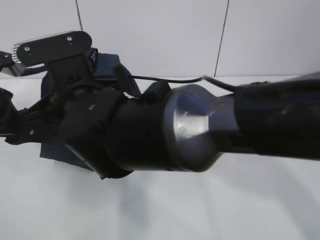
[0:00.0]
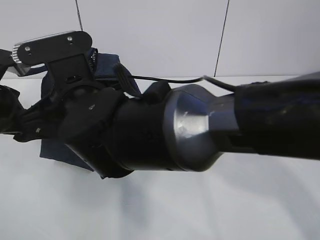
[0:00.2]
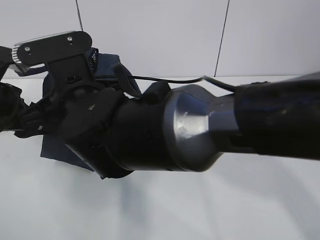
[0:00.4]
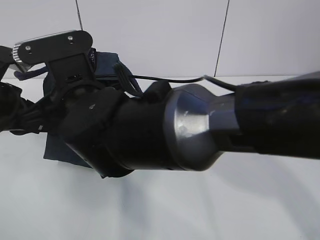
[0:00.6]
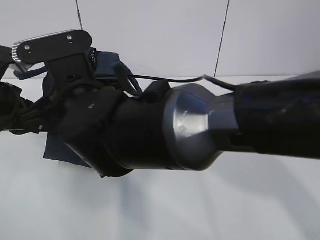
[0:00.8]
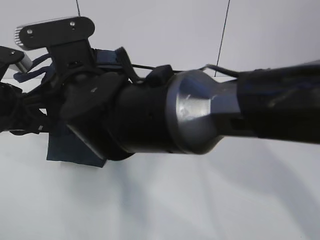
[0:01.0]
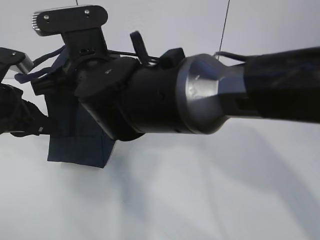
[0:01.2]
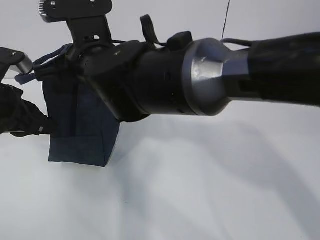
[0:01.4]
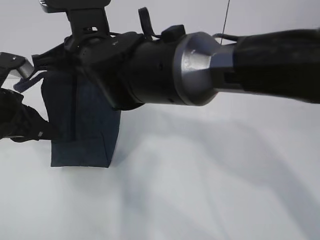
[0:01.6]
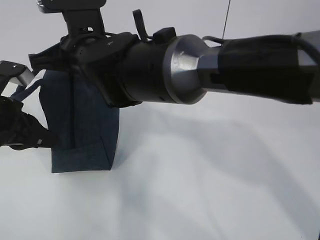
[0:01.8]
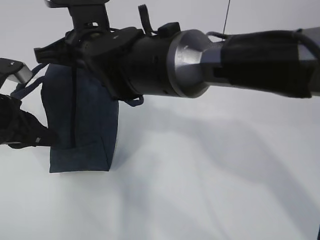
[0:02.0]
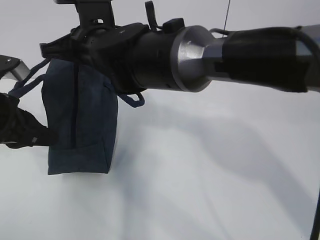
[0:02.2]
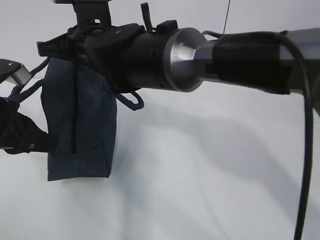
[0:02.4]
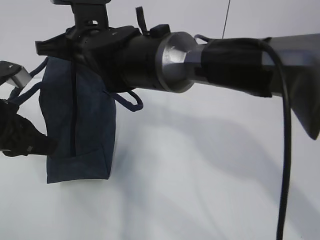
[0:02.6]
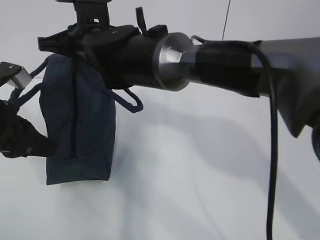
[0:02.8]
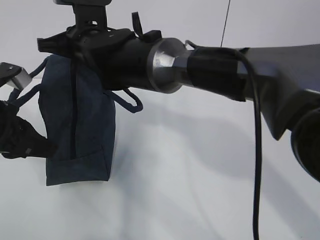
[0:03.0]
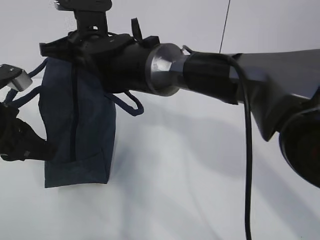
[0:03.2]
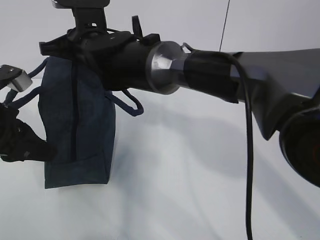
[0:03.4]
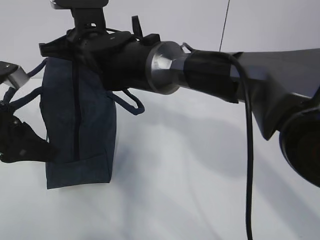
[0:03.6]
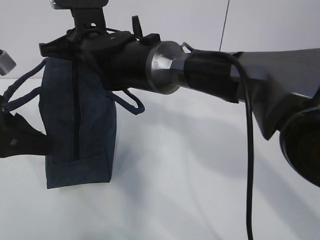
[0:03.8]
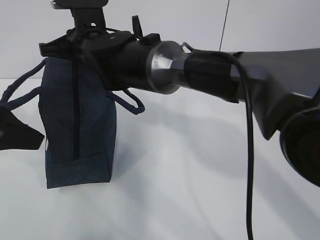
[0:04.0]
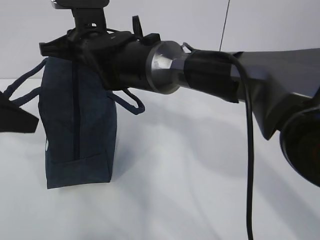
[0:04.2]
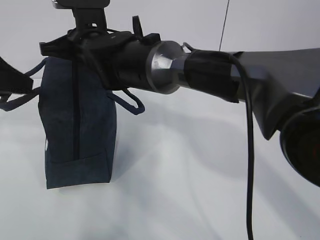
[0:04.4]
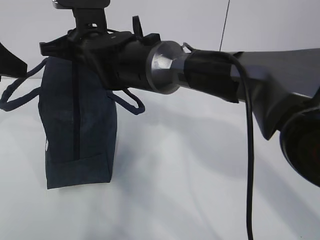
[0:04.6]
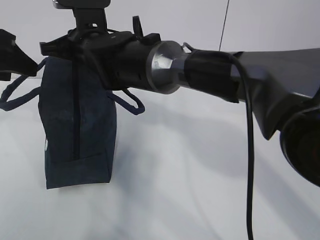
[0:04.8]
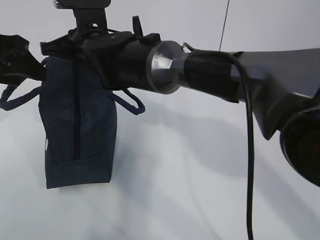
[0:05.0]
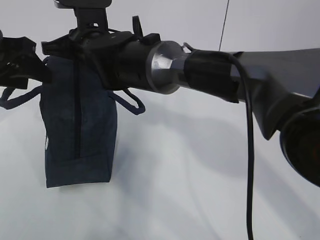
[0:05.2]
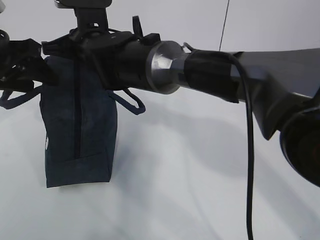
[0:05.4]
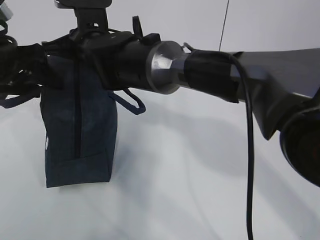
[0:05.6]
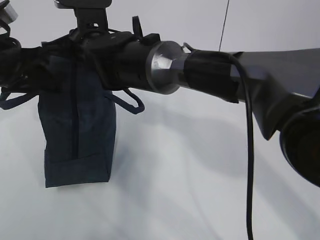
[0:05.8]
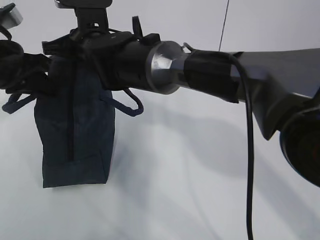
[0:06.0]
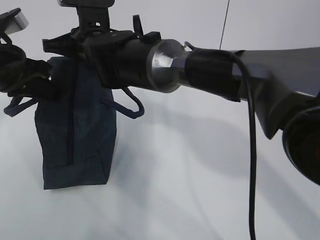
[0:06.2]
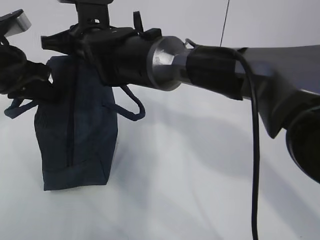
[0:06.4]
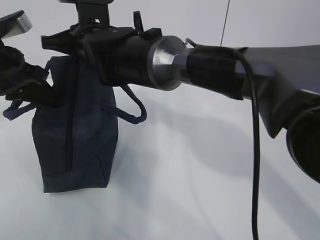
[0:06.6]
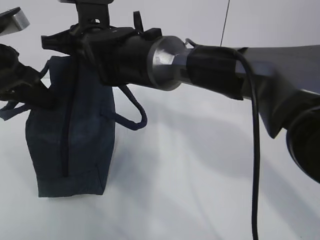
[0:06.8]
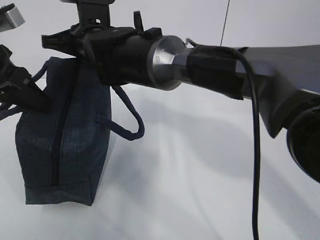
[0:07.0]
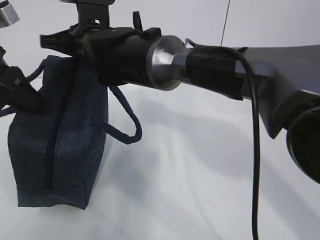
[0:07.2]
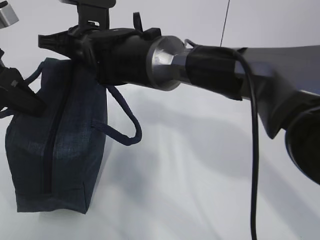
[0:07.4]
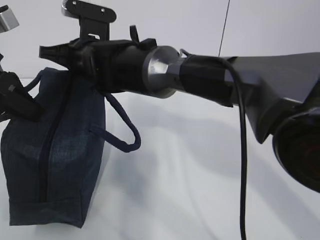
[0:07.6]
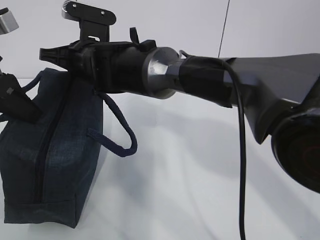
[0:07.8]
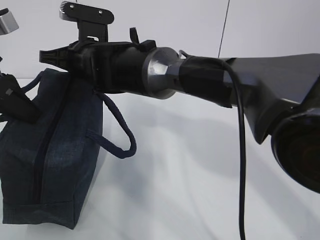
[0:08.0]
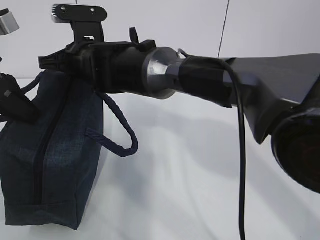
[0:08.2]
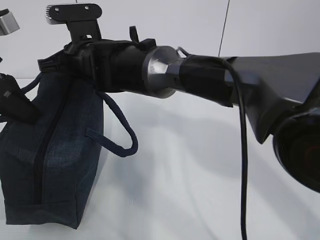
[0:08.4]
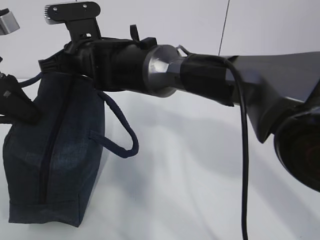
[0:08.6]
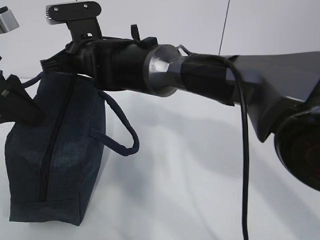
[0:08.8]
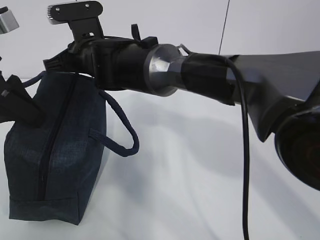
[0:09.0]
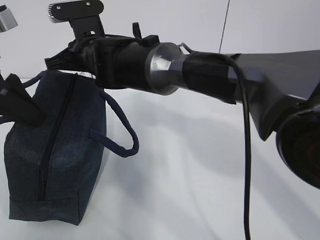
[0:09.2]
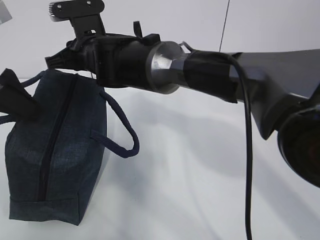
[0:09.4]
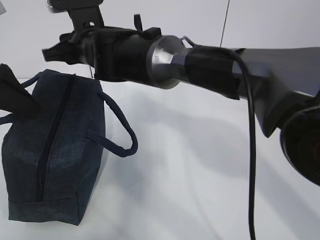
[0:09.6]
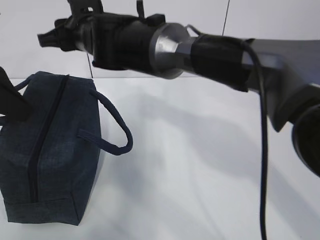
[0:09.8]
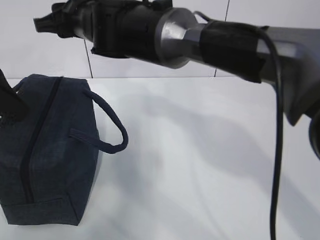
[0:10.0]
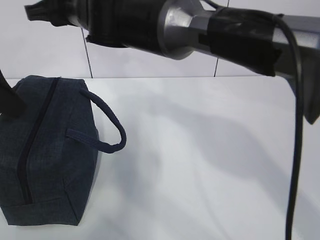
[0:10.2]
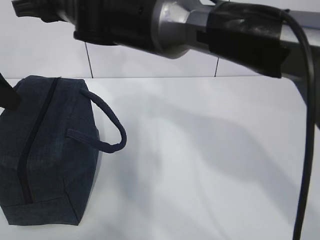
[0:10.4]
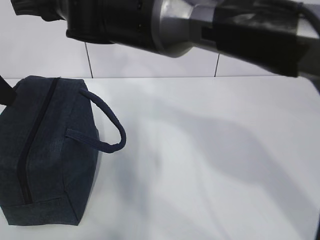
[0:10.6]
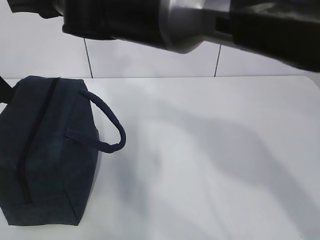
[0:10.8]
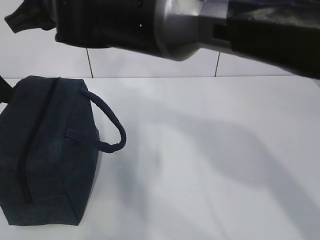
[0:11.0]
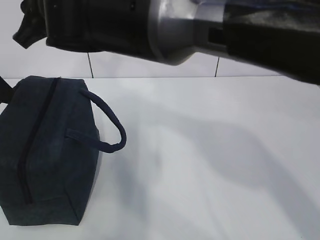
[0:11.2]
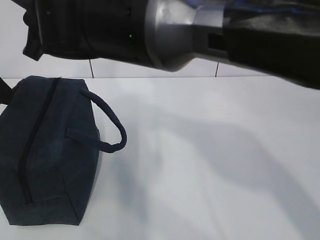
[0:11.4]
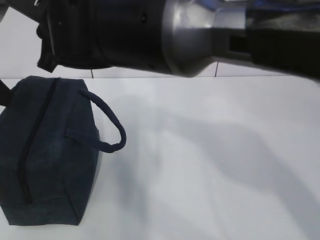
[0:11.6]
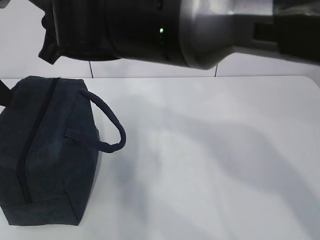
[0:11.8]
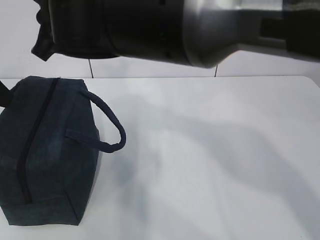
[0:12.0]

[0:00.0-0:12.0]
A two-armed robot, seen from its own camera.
Step, 0:00.0 to 0:06.2: Grab the lunch bag with your right hand.
Step, 0:06.4 to 0:08.0: Move the lunch bag to the right.
Step, 0:08.2 to 0:11.2: Grab the lunch bag with your left hand.
0:00.0 to 0:01.6: The left gripper closes its fingers; the right gripper is displaced forward by approximately 5 cm.
0:01.6 to 0:03.0: The right gripper goes some 5 cm forward.
0:03.0 to 0:04.4: The left gripper heads upward, covering approximately 10 cm, and opens.
0:04.4 to 0:06.0: The left gripper heads forward, covering roughly 10 cm, and closes.
0:06.0 to 0:07.6: The left gripper travels backward by roughly 5 cm.
0:07.6 to 0:09.0: The left gripper opens.
0:09.0 to 0:10.4: The right gripper is displaced upward by some 10 cm, and opens up.
0:10.4 to 0:12.0: The right gripper is displaced backward by roughly 5 cm.

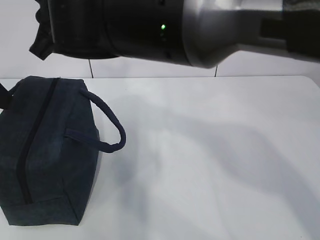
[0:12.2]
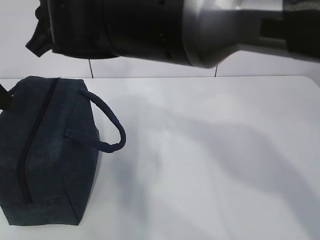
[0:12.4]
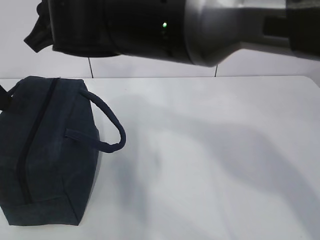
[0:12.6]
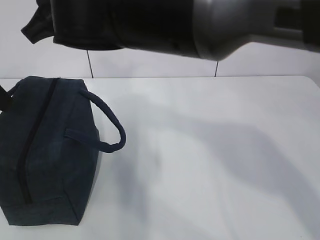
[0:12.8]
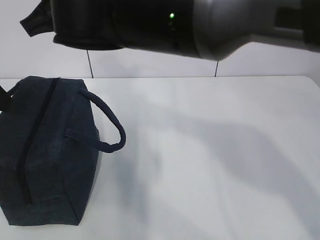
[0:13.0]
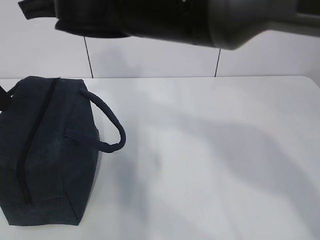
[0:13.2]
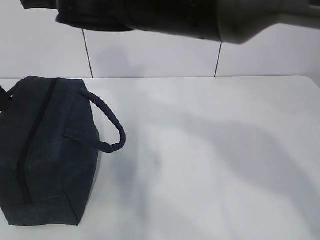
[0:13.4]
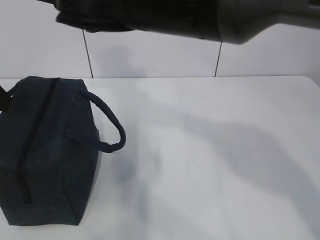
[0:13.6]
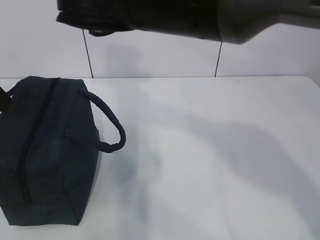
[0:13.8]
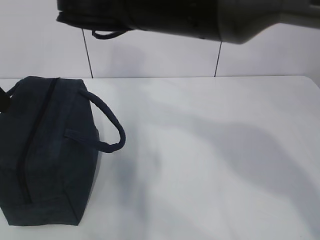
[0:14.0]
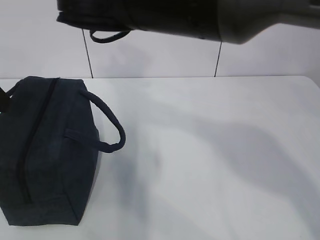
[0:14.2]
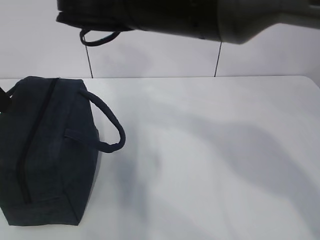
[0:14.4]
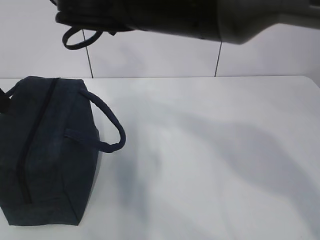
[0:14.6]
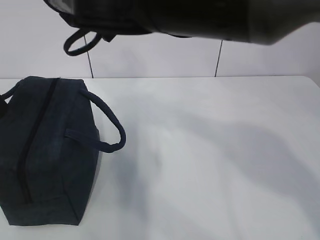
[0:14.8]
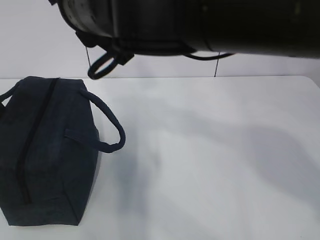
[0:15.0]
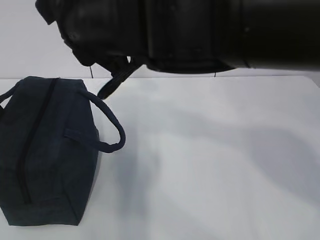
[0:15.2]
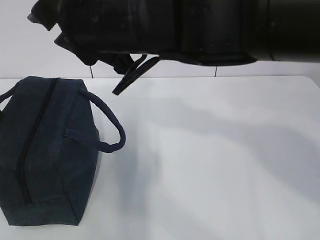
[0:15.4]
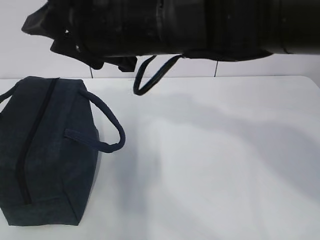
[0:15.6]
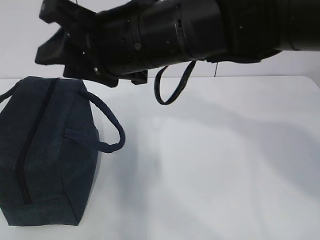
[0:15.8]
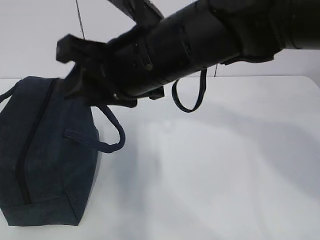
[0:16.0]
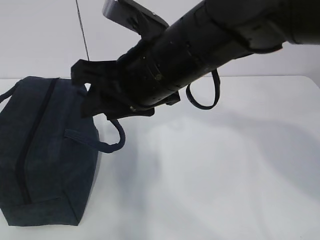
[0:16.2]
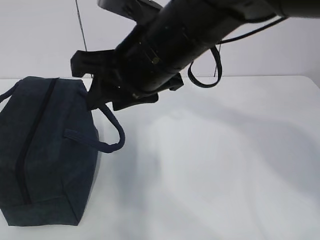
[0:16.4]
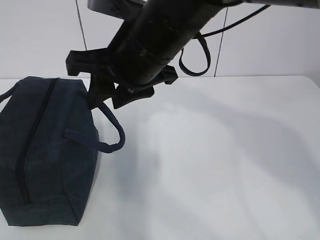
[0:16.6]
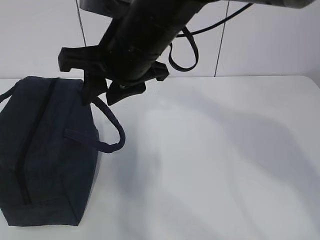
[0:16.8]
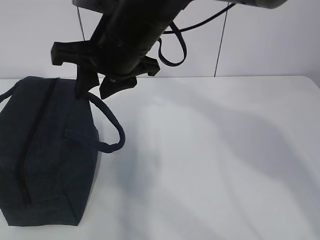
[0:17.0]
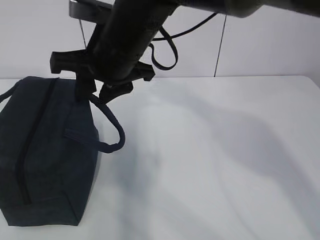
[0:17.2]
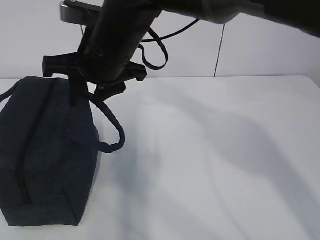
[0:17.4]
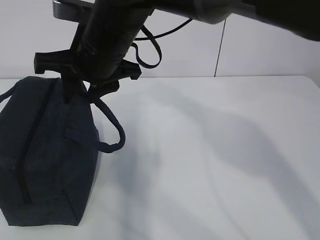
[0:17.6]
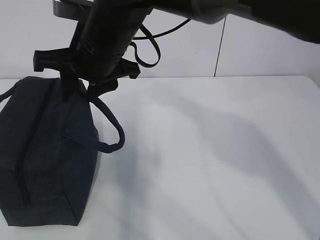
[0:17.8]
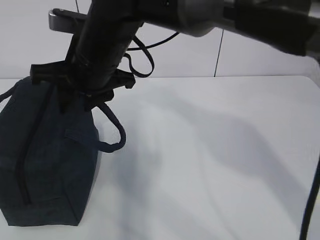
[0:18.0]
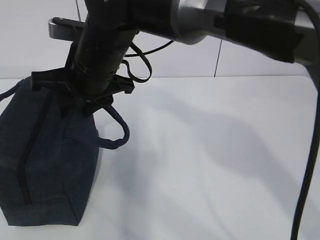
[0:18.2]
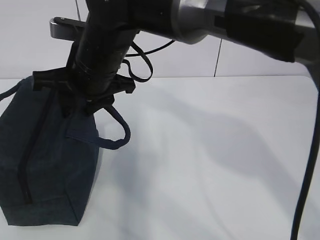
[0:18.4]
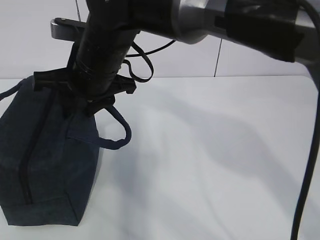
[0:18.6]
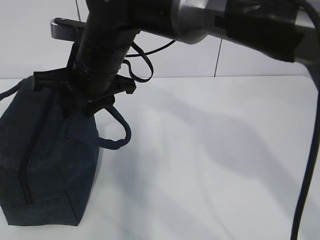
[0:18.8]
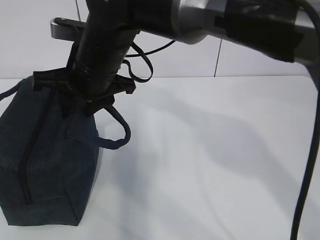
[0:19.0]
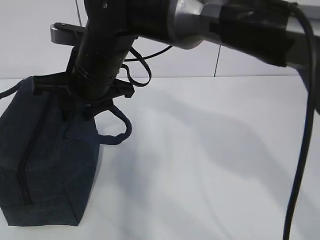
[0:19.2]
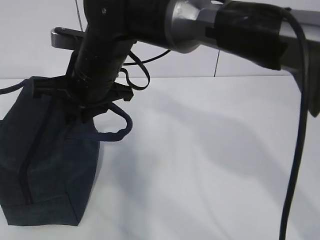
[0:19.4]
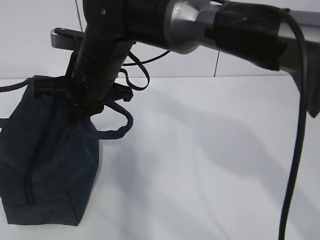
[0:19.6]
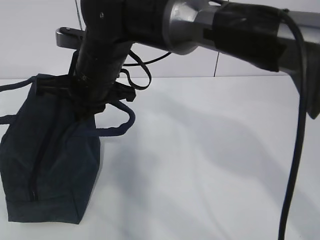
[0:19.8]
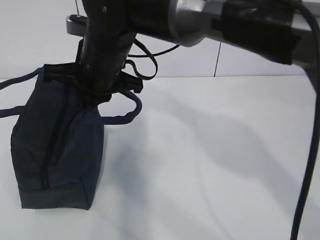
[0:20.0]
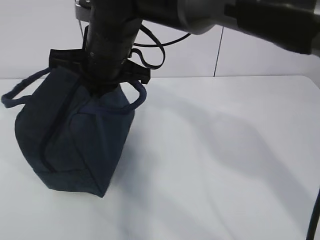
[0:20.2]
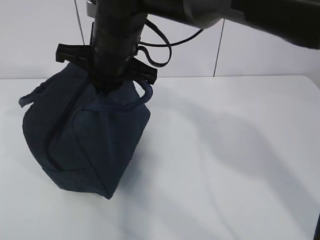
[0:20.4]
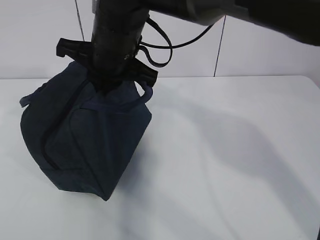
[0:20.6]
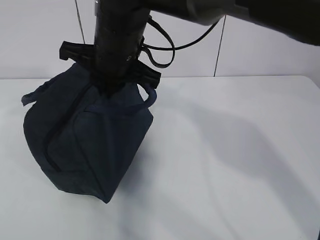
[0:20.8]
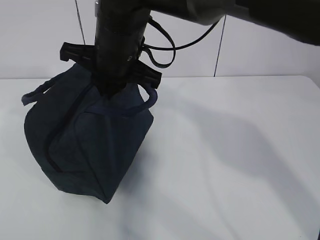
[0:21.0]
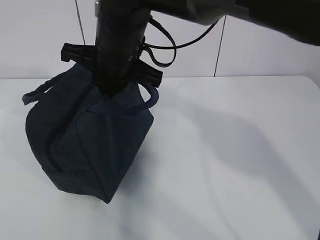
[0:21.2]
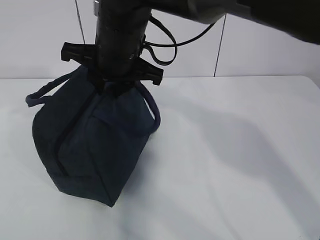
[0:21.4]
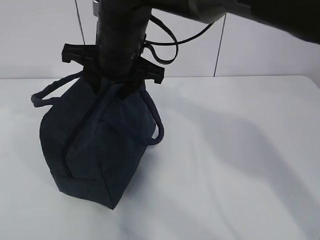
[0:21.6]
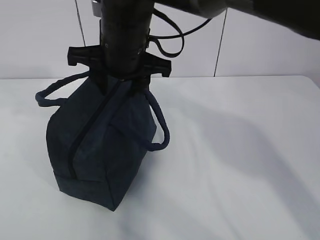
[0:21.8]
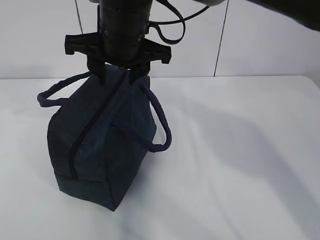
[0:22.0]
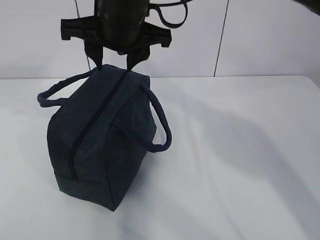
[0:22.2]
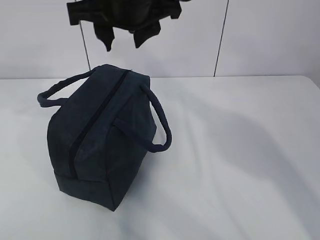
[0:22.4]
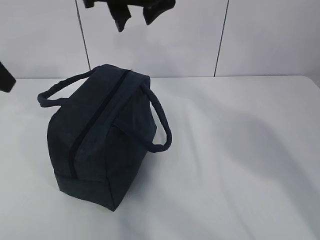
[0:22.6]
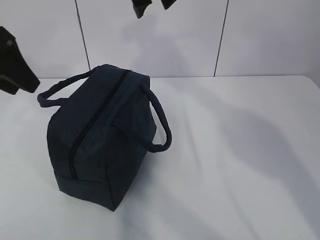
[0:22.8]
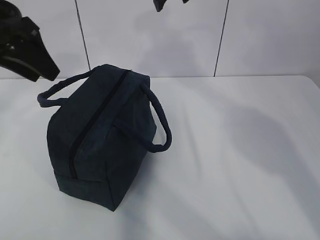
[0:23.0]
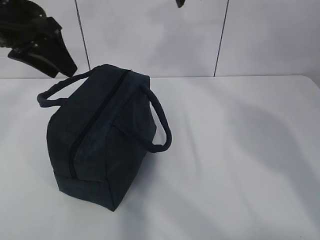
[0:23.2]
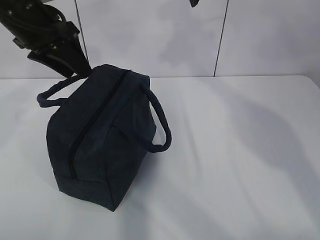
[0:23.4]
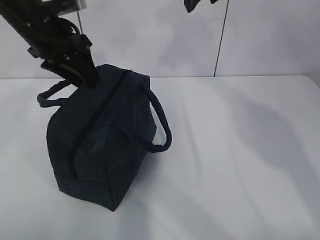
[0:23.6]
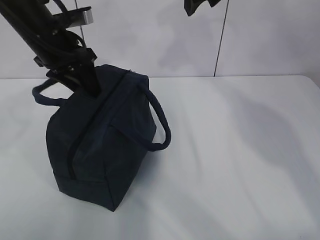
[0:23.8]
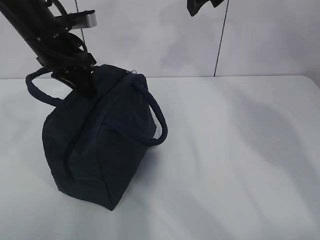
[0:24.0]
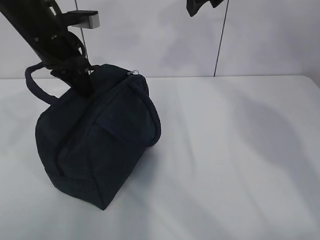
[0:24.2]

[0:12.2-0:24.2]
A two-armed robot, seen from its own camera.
Step, 0:12.2 to 0:23.0: Pull the zipper with your right hand.
Step, 0:23.2 to 0:23.4: Grab the lunch bag with your left hand.
0:13.8 to 0:15.2: The right gripper ends up roughly 5 cm from where it was.
0:15.2 to 0:16.6: The right gripper ends up about 5 cm from where it was.
0:16.6 to 0:18.2: The right gripper travels to the left and forward by some 10 cm.
0:18.2 to 0:19.8: The right gripper closes.
0:21.2 to 0:22.6: The right gripper moves upward, about 10 cm, and opens its fingers.
0:22.6 to 0:24.2: The left gripper shifts some 15 cm forward, to the right and downward, and closes up, while the right gripper is displaced to the right and forward by about 10 cm.
